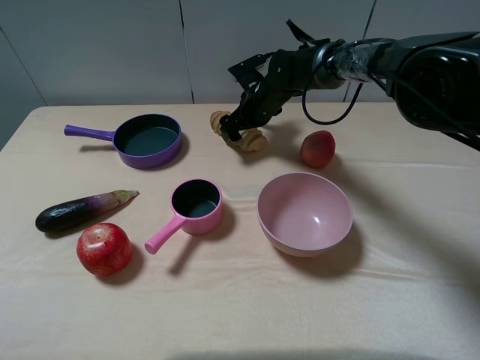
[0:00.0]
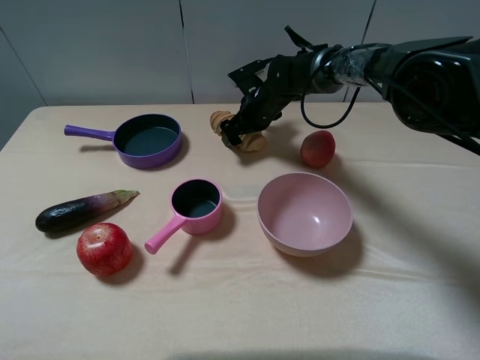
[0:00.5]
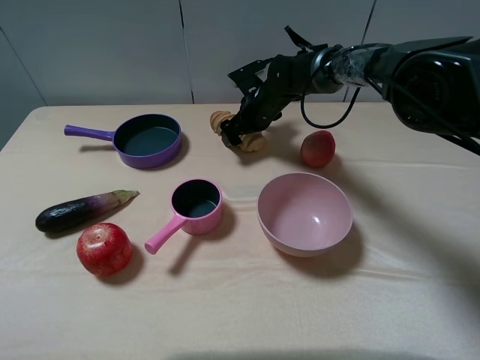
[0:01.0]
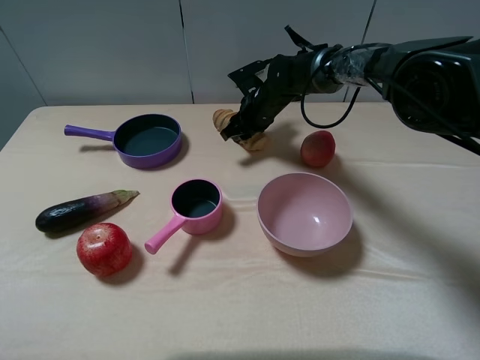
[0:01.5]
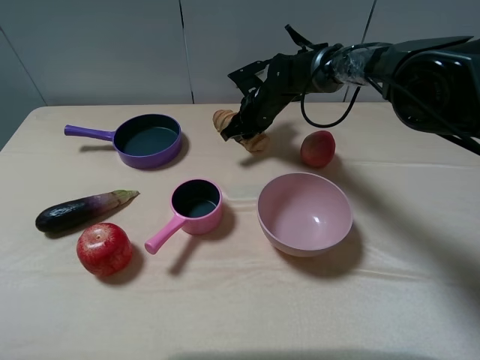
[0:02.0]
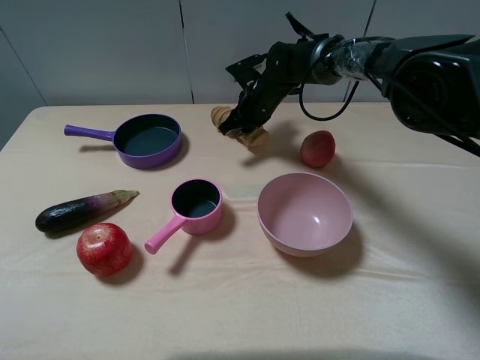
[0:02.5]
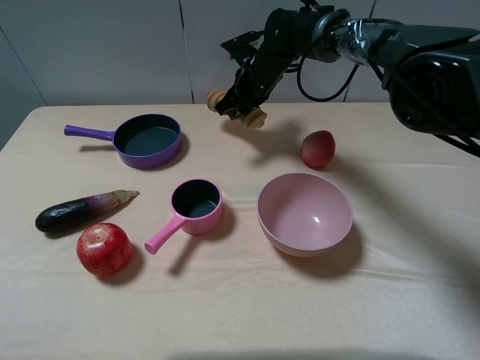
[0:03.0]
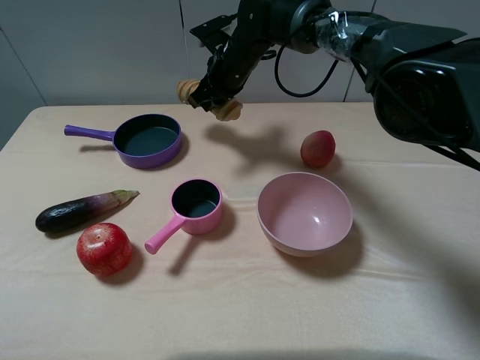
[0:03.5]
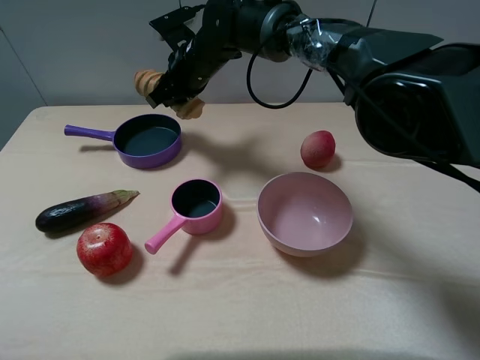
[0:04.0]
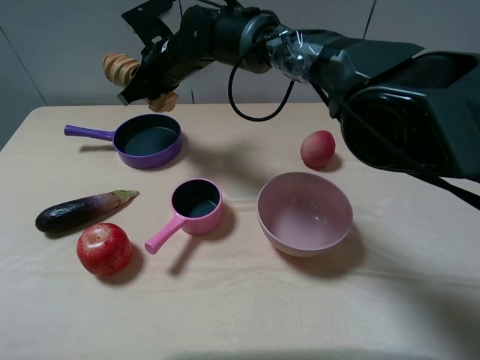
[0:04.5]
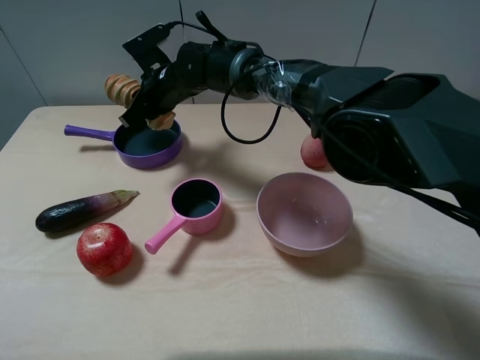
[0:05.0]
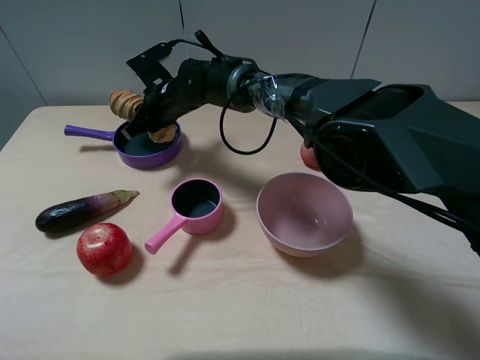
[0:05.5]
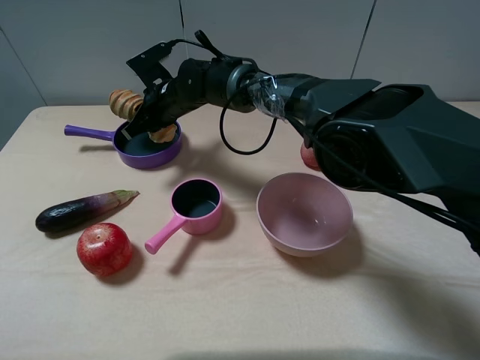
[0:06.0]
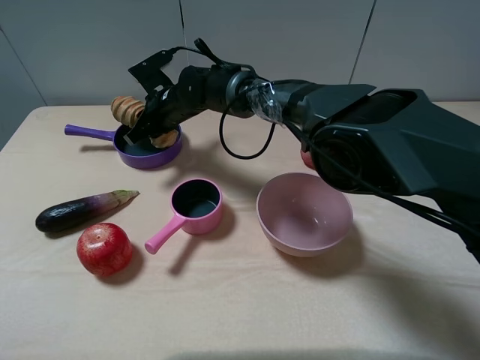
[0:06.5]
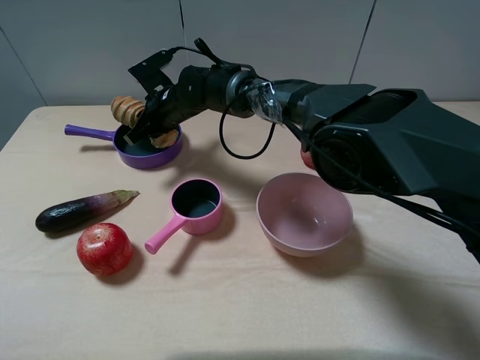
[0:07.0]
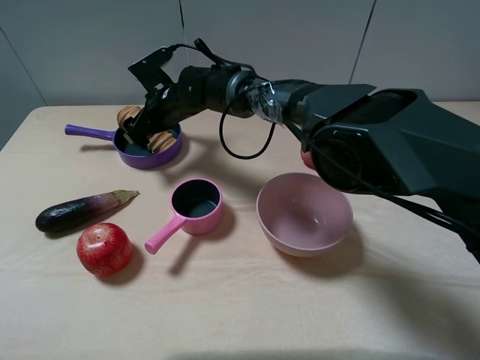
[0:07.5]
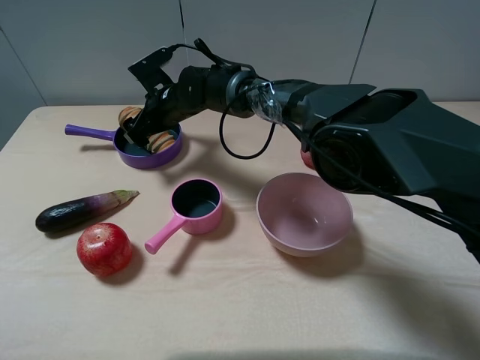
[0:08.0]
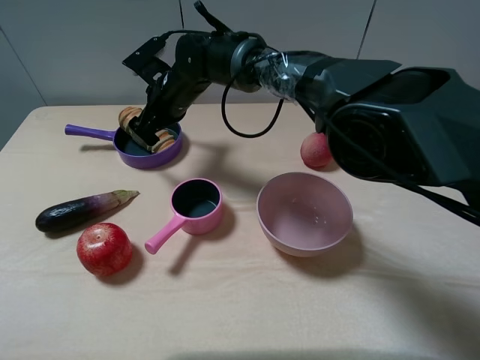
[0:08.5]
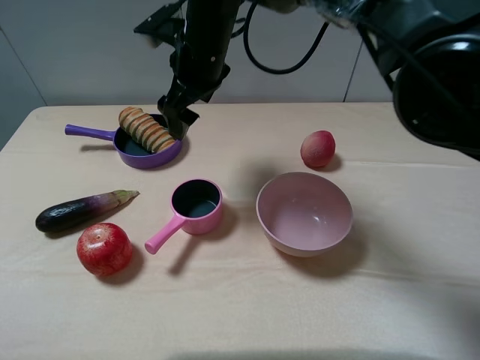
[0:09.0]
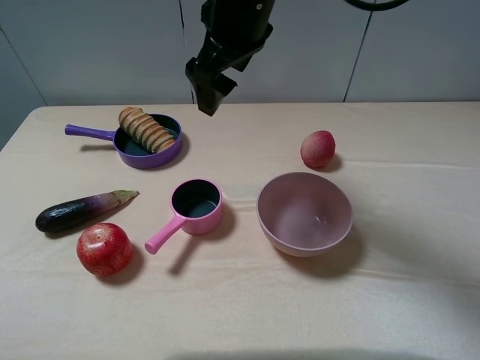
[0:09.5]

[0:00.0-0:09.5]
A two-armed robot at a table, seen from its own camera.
Task of the whole recording: pick up an item with a gripper and place it in a random container on the table.
Step, 0:02.0 to 0:08.0: Place the long bread into the purple pot with the right gripper.
0:00.0 to 0:02.0: The right gripper closes its fingers.
0:02.0 to 0:04.0: The right gripper is displaced to the left and upward by about 15 cm.
0:04.0 to 0:05.5: The right gripper moves downward, about 5 cm.
0:05.5 to 0:07.5: The right gripper opens up.
0:07.5 to 0:09.5: The right gripper moves upward, to the right and backward, roughly 25 cm.

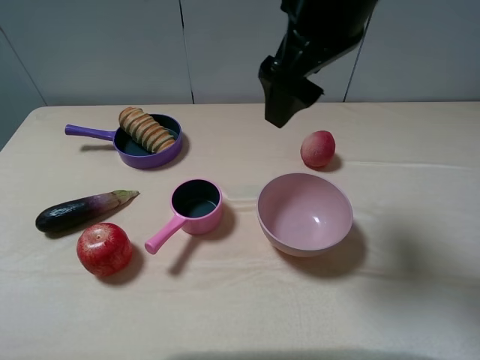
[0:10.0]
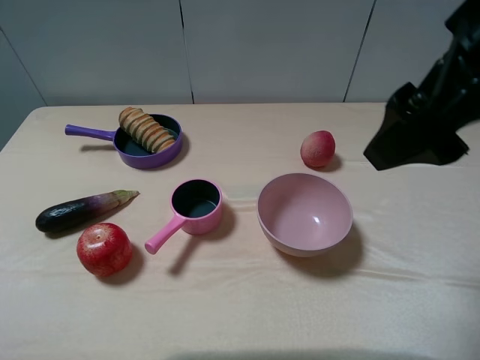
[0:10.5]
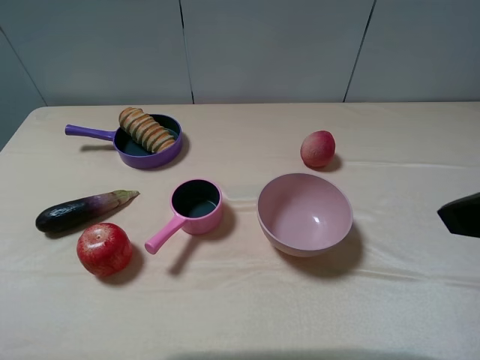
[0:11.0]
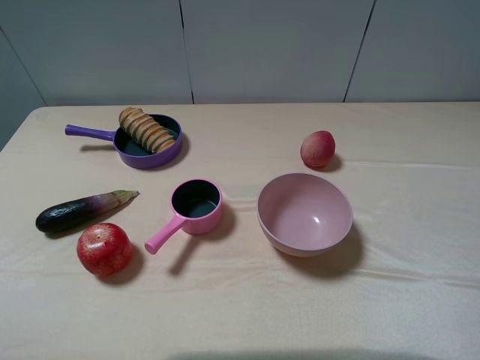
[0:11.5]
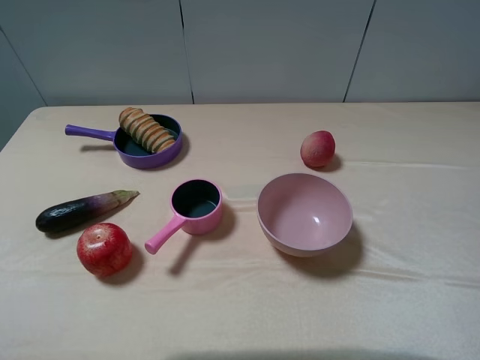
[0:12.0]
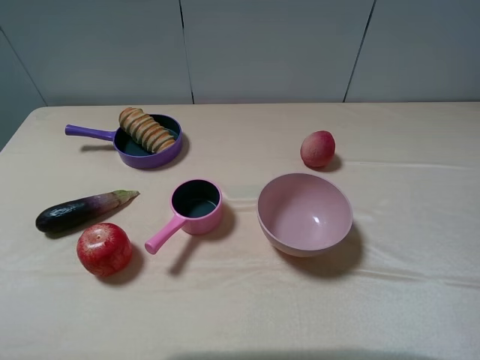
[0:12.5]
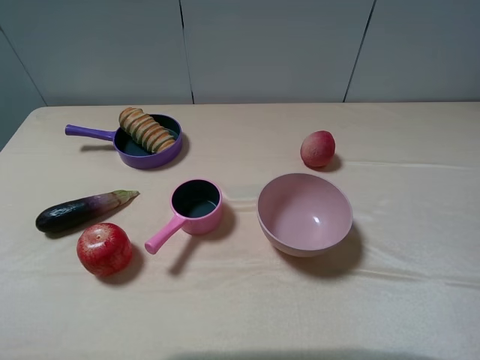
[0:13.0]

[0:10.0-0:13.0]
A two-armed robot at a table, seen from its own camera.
Task of the whole recording: pick up an item with a gripper and place it in a random container on the table.
0:10.0 to 0:11.5: The right gripper goes some 30 cm to the right and backward.
